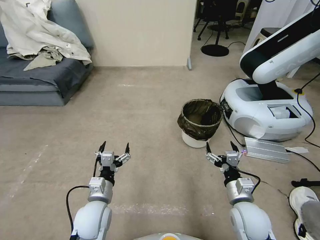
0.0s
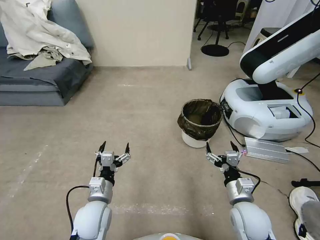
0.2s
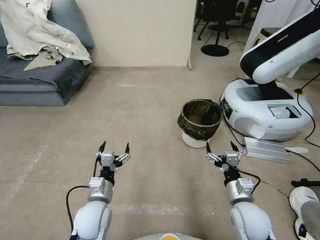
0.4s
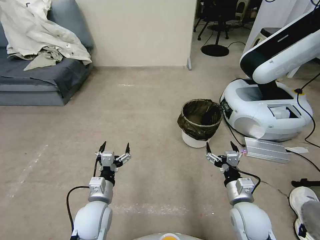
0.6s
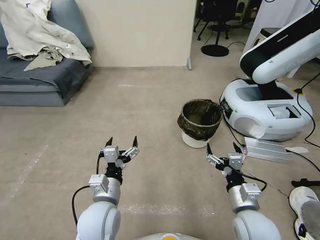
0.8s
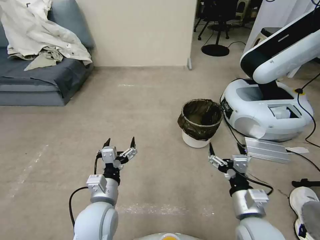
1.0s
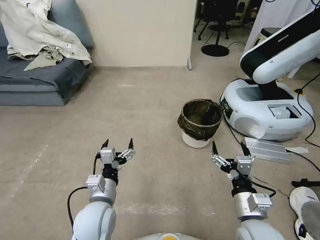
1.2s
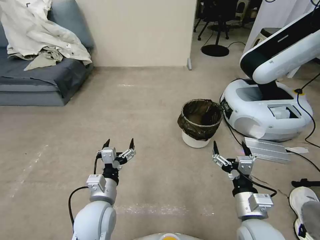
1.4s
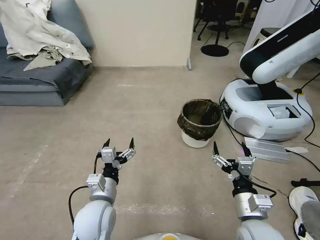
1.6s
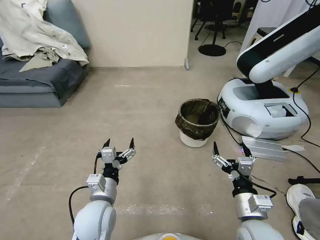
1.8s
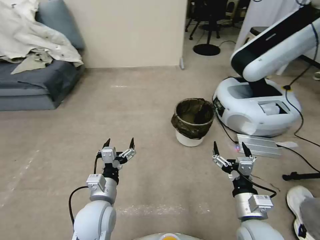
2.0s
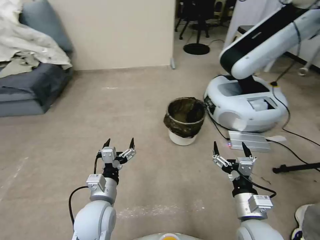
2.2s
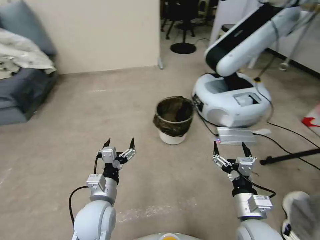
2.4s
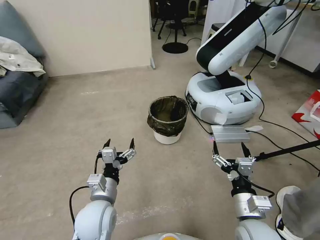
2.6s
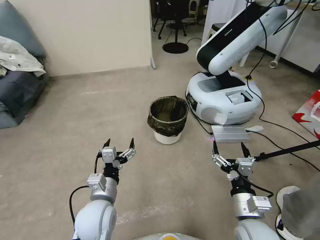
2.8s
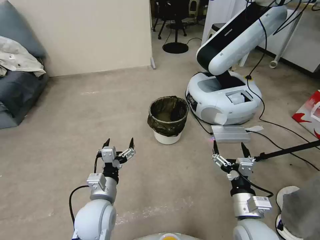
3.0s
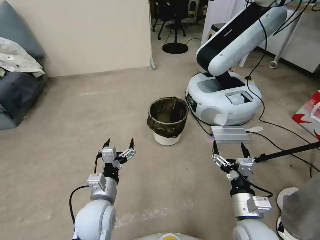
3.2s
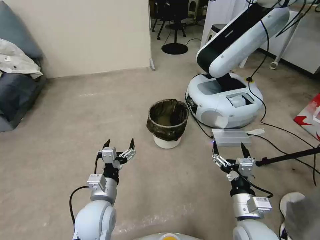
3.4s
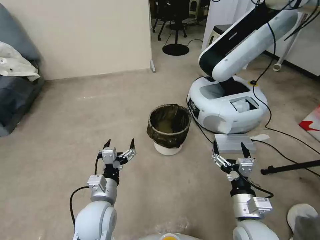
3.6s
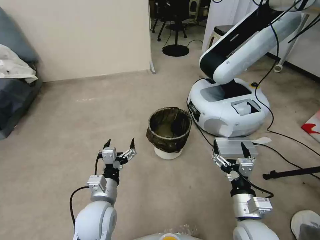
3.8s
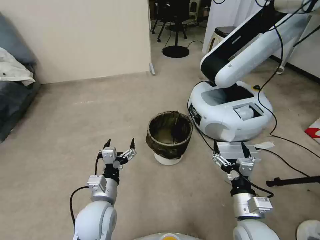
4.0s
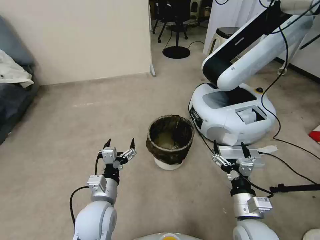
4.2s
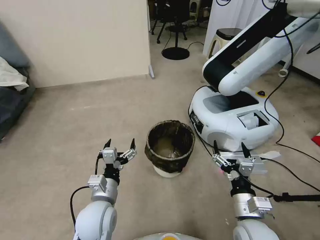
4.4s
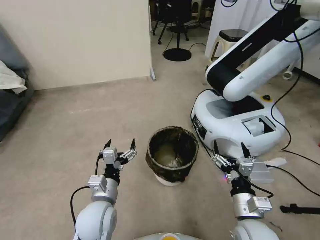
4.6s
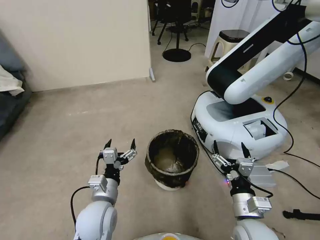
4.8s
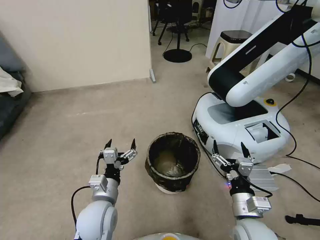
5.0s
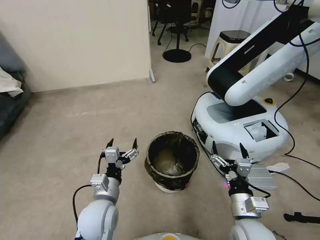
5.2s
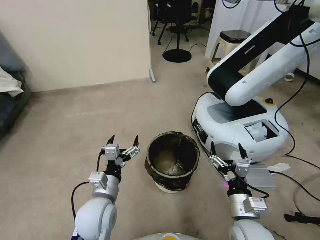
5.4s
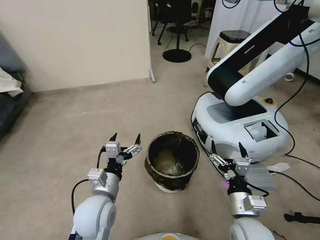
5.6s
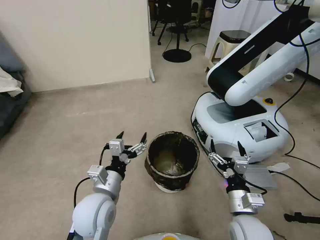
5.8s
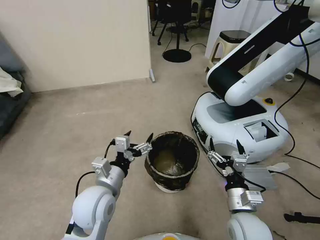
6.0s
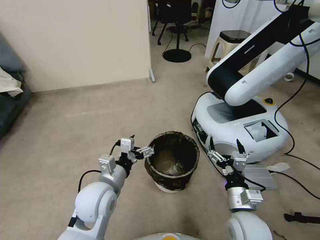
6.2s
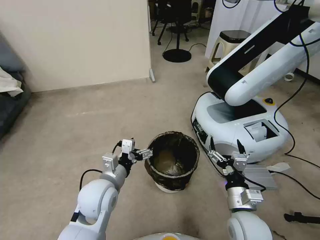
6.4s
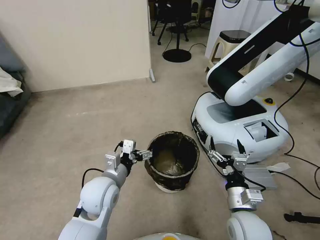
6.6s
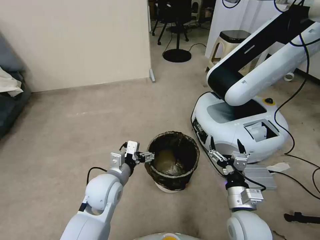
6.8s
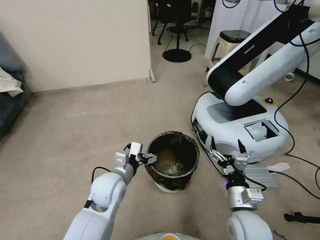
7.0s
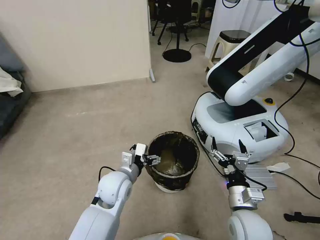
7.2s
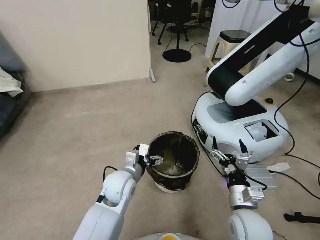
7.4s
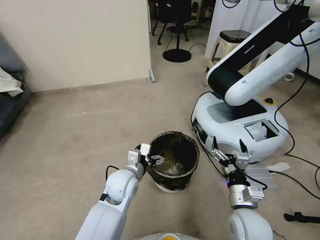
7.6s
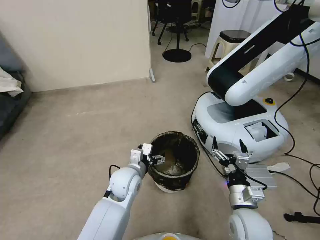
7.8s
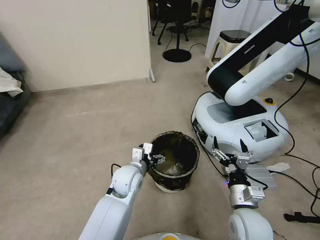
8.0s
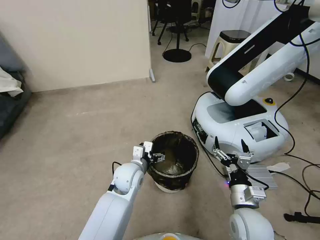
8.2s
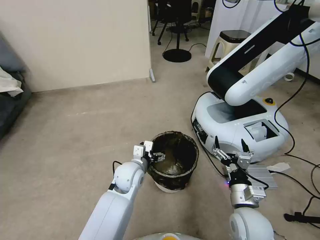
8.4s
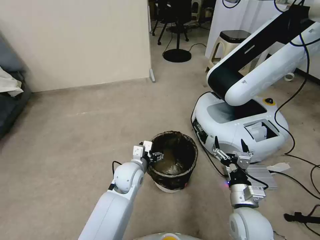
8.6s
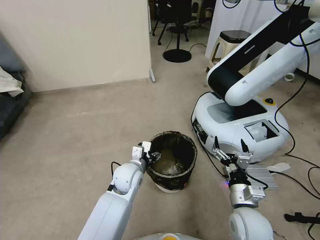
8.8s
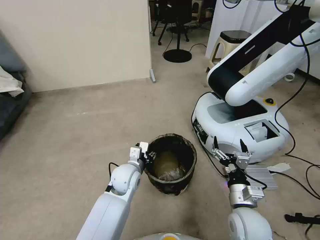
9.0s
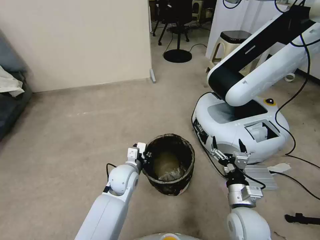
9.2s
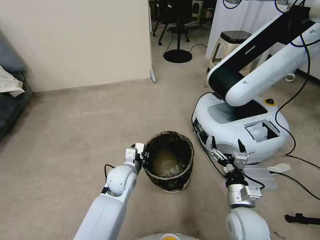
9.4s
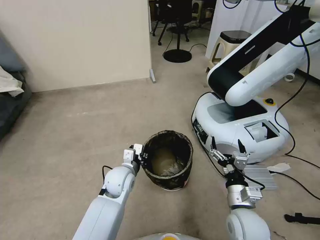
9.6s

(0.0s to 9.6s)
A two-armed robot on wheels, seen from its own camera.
Task of the whole recording: Pick up the trash can from the floor.
4.8s - 6.4s: The left gripper shifts by about 5 cm.
6.4s - 8.0s: The left gripper heads forward, to the right and downward, covering some 10 cm.
8.0s - 9.6s: The left gripper closes its fingers.

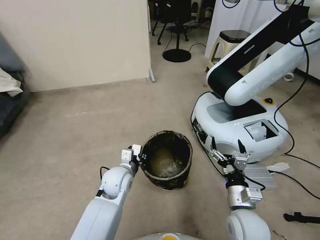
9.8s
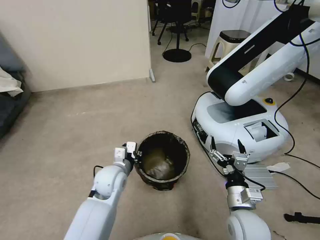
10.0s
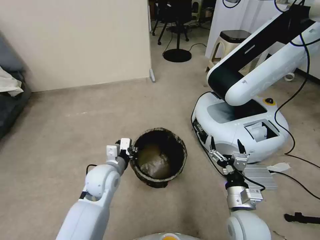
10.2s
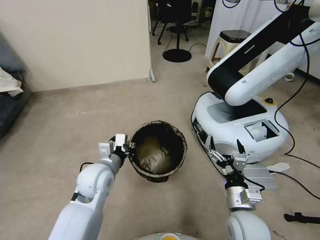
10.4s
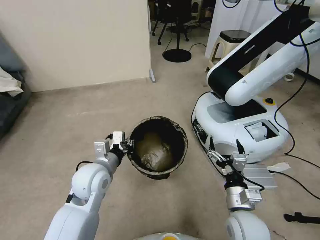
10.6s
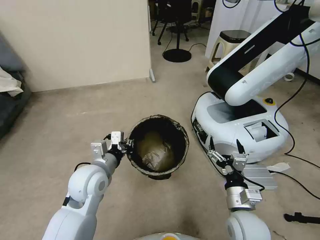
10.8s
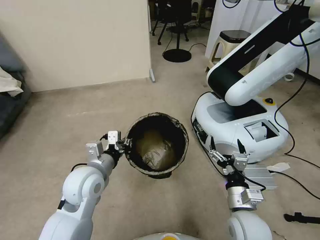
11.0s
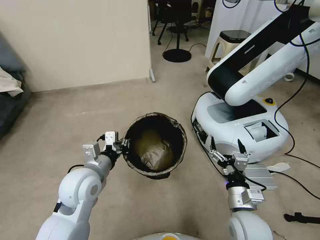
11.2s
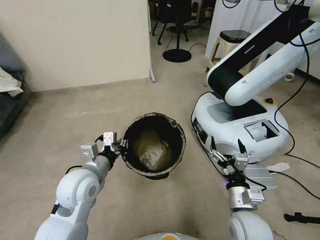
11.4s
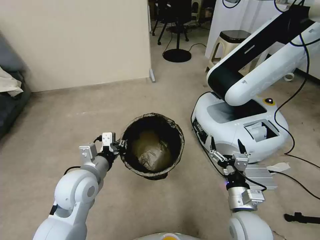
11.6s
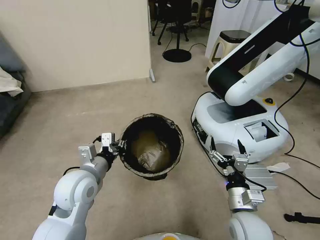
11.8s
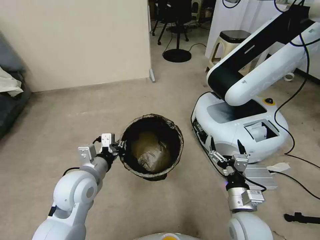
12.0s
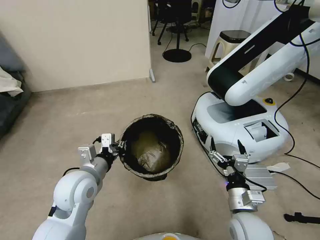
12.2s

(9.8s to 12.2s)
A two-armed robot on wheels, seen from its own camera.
Task of the whole recording: Pick up the trash can from the floor.
9.8s - 11.0s: The left gripper moves upward, to the left and backward, some 15 cm.
11.0s - 12.2s: There are only small adjustments of the grippers.

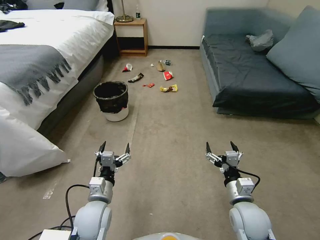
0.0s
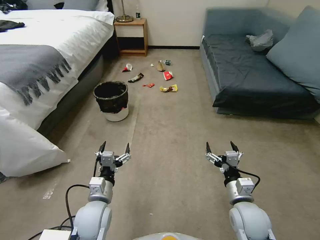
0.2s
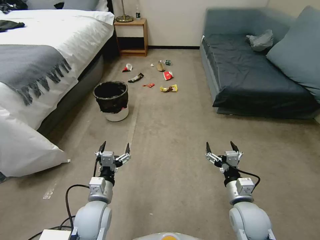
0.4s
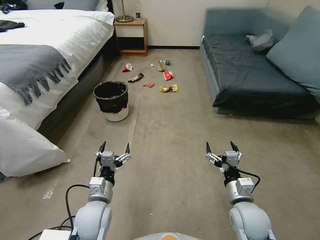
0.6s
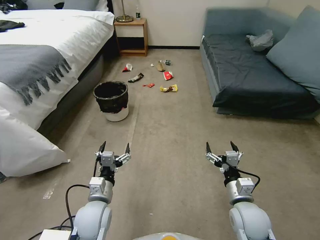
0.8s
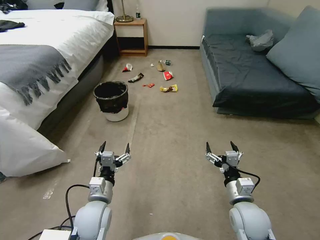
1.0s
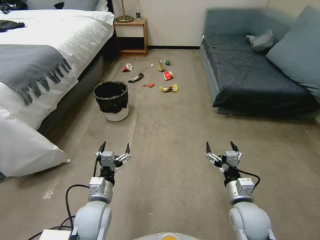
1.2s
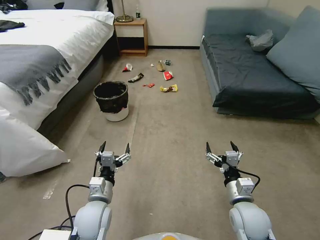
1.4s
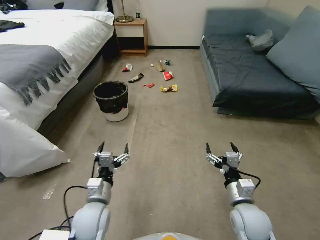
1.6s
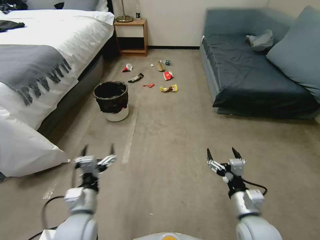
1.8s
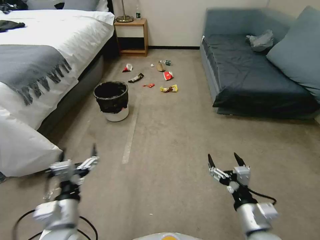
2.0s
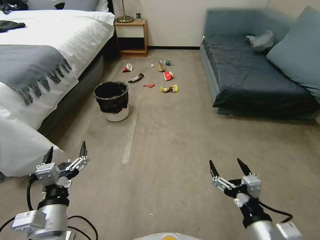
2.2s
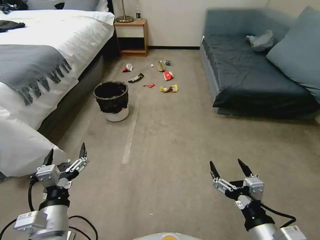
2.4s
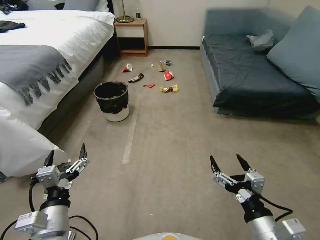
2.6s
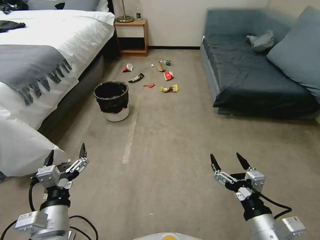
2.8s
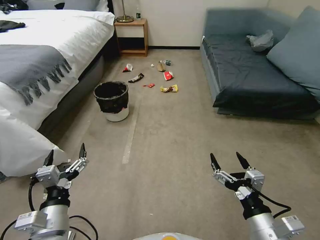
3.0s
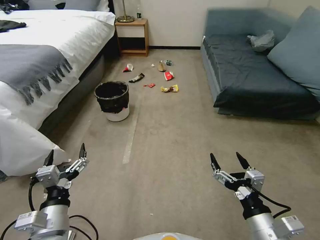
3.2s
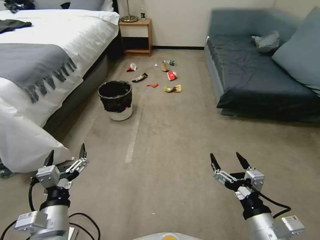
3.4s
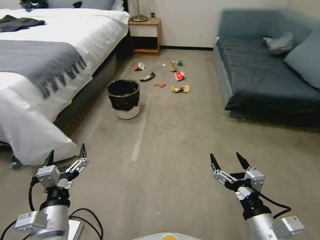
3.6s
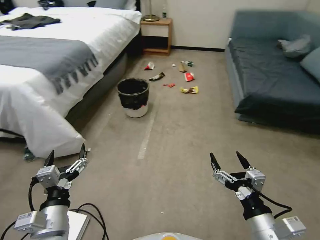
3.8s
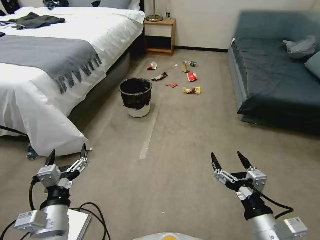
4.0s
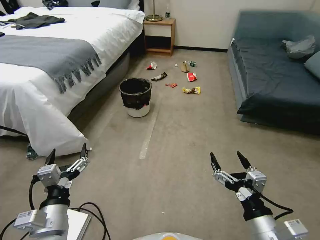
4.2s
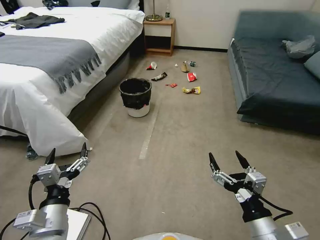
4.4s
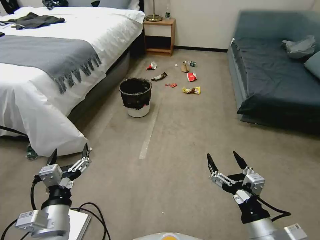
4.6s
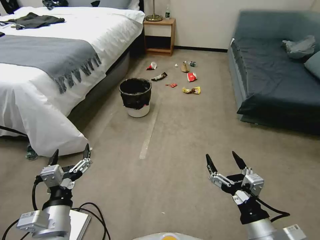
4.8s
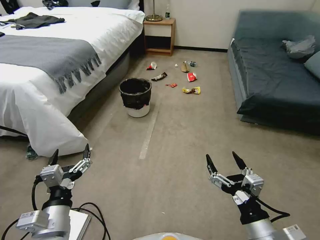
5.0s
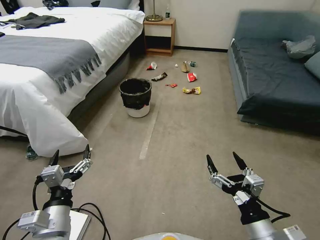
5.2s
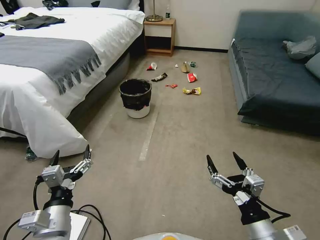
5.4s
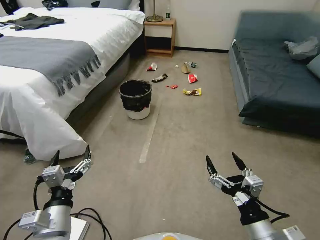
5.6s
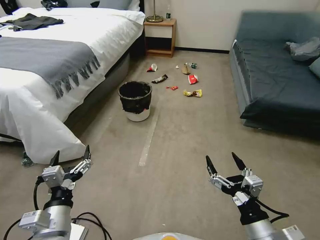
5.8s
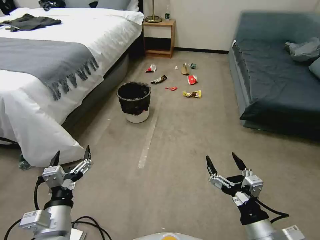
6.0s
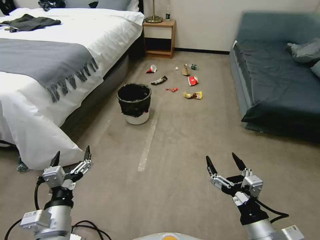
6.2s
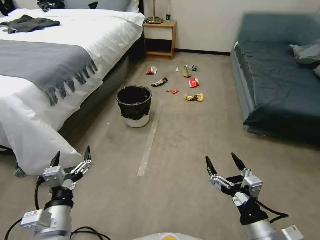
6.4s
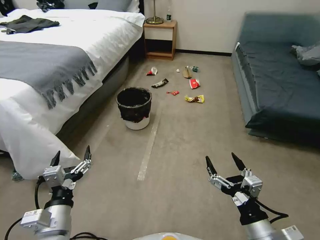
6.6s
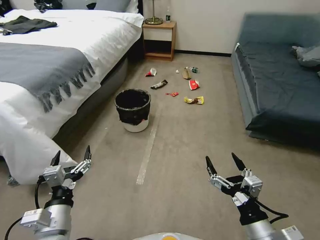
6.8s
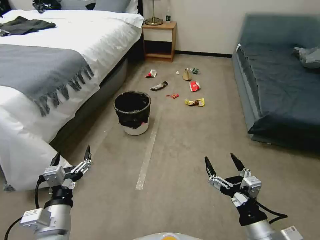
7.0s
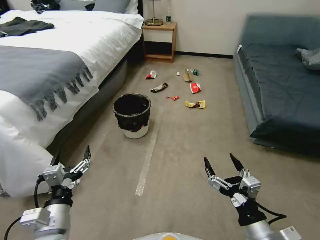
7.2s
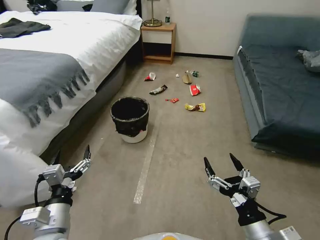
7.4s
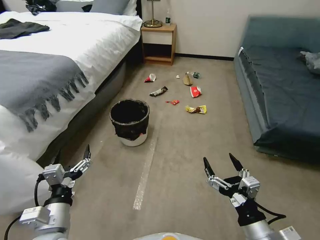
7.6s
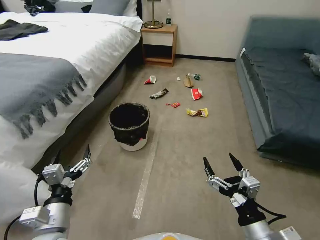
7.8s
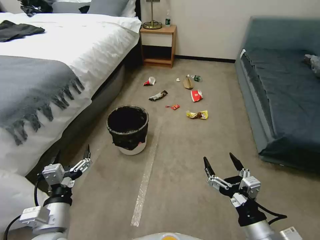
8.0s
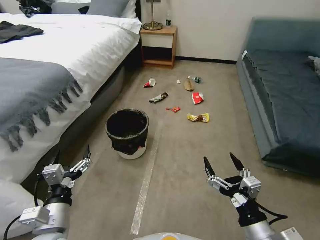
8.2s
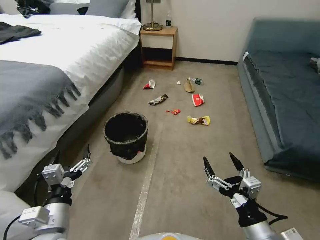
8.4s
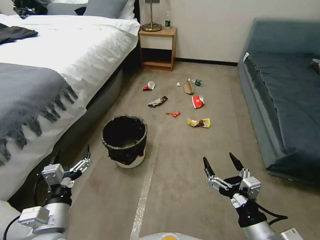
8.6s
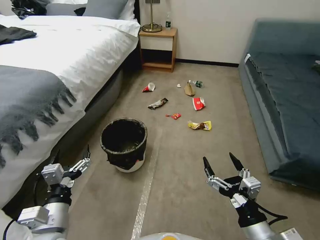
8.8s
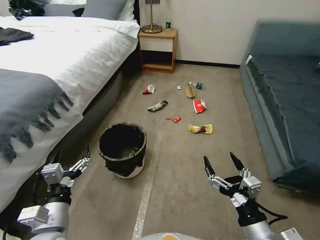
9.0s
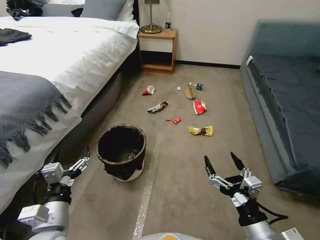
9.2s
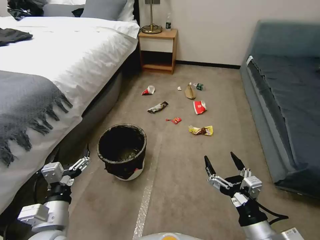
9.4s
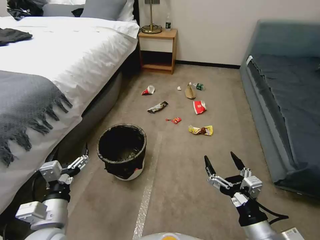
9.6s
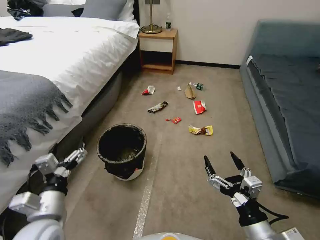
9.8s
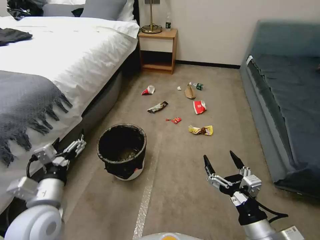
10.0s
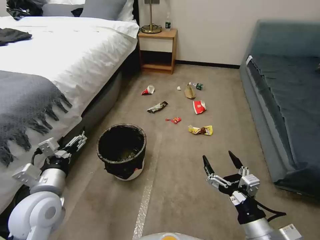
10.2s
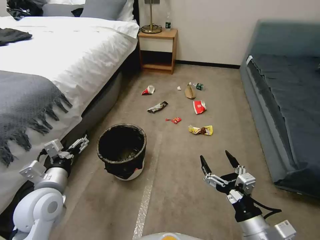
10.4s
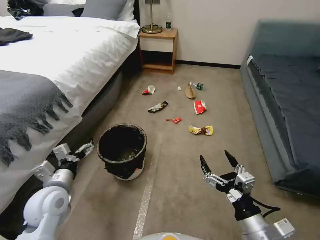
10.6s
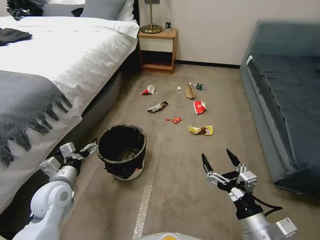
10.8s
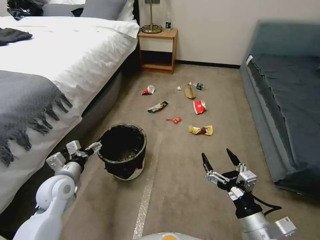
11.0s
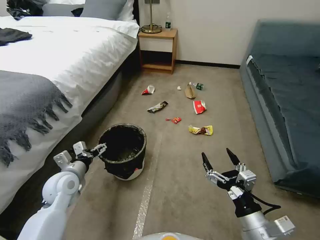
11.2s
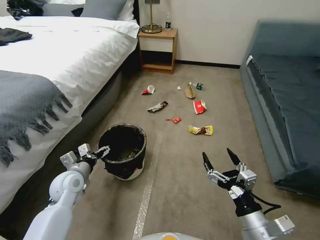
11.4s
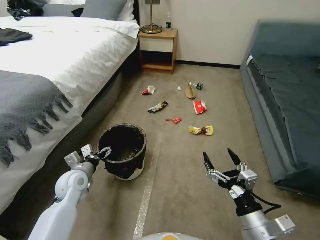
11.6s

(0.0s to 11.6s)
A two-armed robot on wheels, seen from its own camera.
Task of the whole recording: Pick up the trash can from the floor.
1.4s - 2.8s: The right gripper heads backward and upward, covering approximately 15 cm; the left gripper is displaced backward, upward and to the left by about 15 cm.
4.4s - 5.8s: The two grippers keep their place.
8.8s - 10.2s: The left gripper is displaced forward and upward by about 10 cm.
10.2s - 11.6s: The left gripper travels downward and forward by roughly 15 cm.
